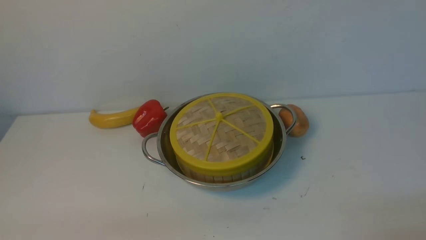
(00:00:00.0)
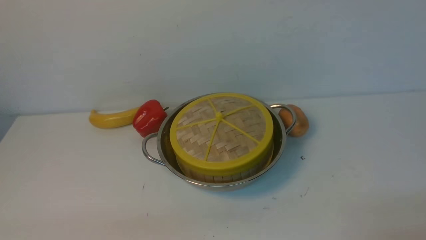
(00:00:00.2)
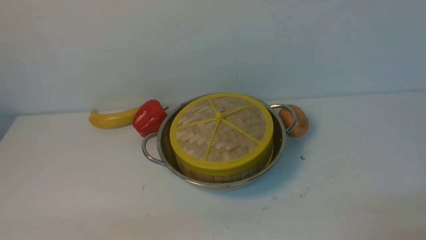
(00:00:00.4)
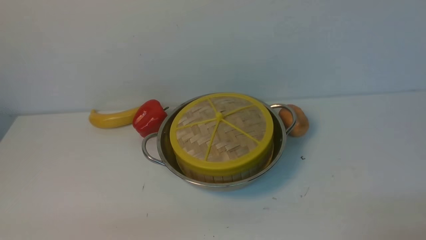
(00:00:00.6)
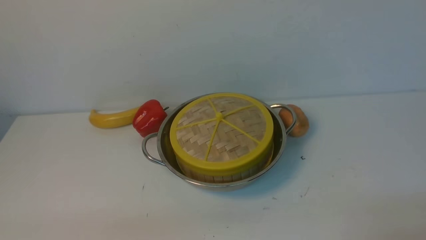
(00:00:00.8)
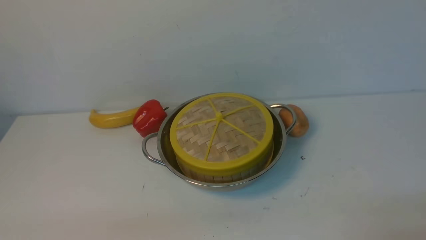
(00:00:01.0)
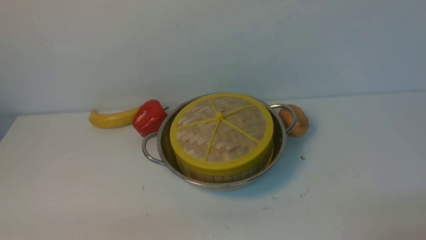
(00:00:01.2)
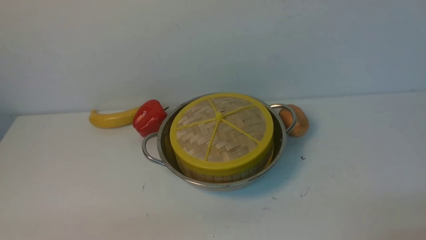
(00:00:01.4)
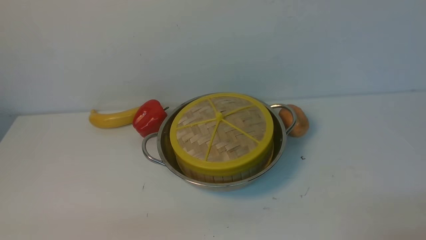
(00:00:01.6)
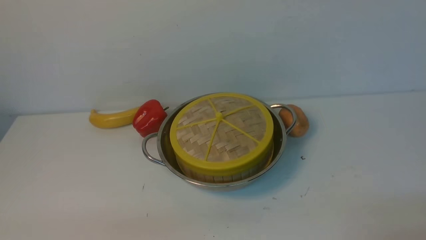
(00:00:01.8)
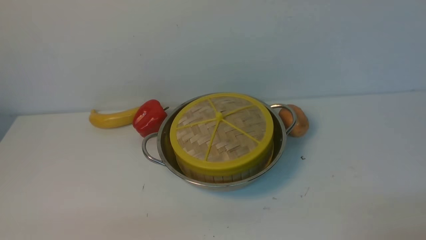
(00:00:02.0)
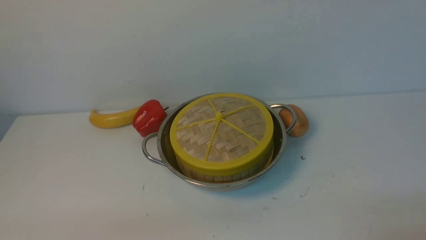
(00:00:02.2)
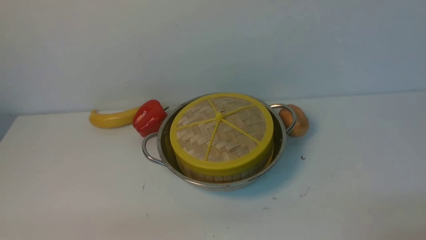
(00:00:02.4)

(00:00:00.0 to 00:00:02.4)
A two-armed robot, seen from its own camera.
Task of the whole recording: place the steamer in the pot on the white table, and put the lid on the steamer.
00:00:00.0 - 00:00:02.4: Both grippers stay about where they are.
